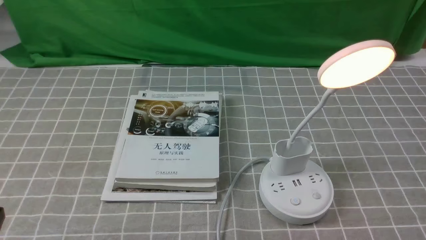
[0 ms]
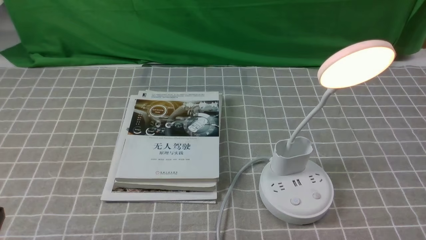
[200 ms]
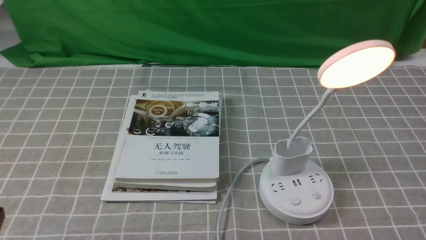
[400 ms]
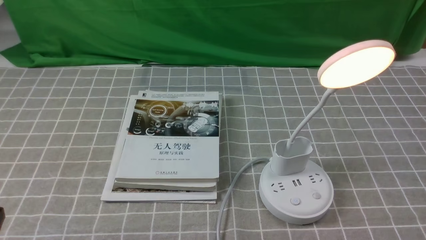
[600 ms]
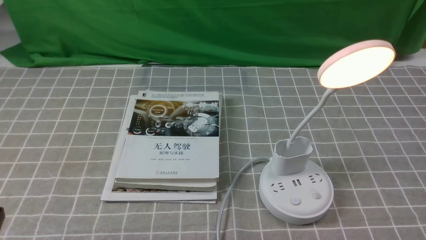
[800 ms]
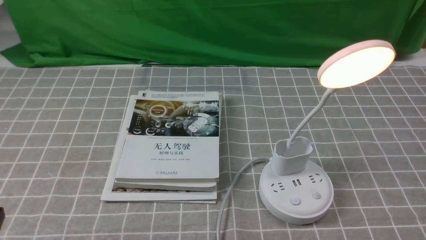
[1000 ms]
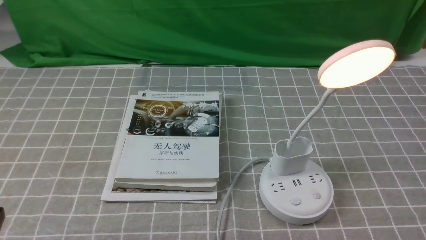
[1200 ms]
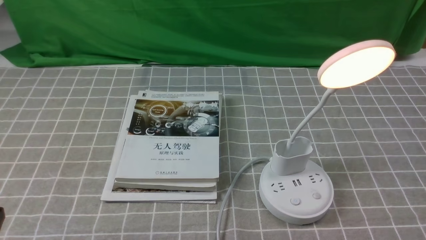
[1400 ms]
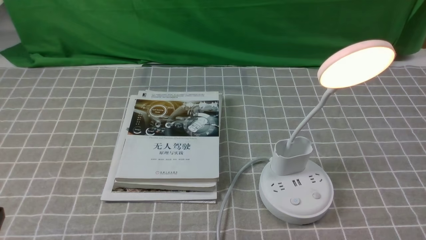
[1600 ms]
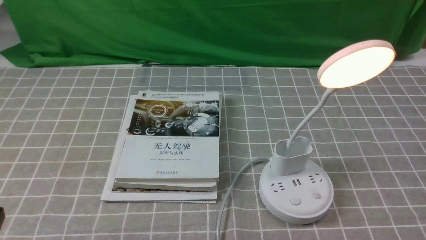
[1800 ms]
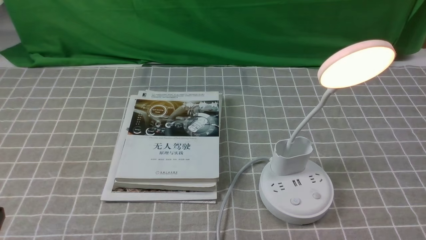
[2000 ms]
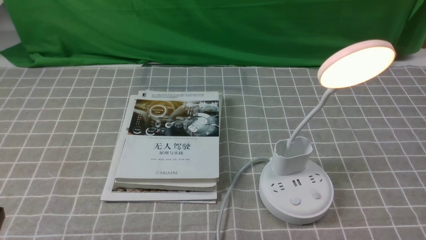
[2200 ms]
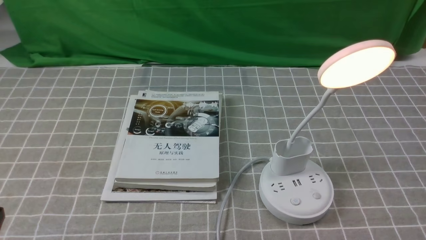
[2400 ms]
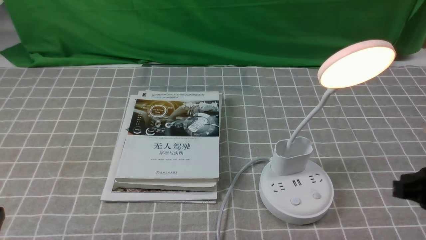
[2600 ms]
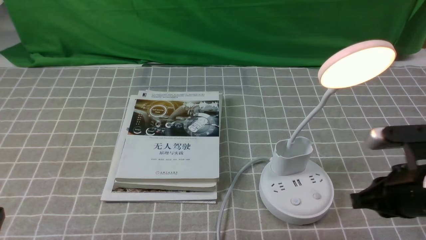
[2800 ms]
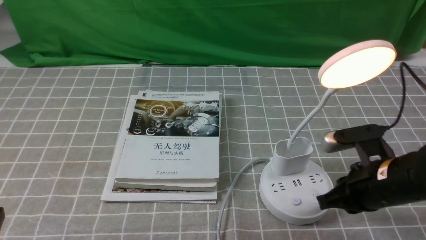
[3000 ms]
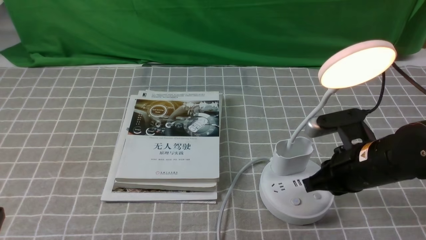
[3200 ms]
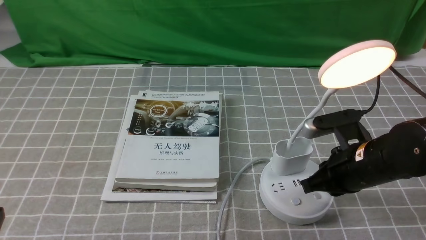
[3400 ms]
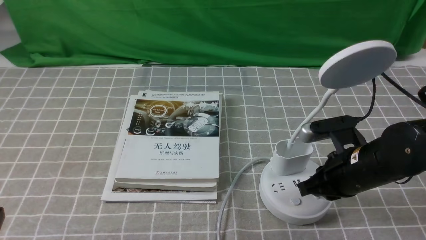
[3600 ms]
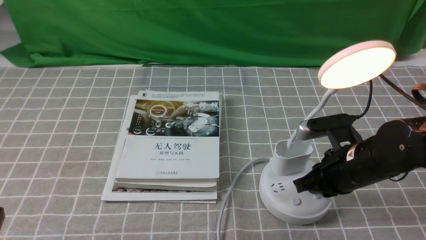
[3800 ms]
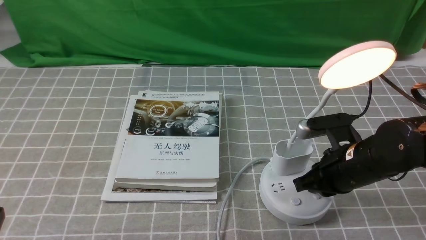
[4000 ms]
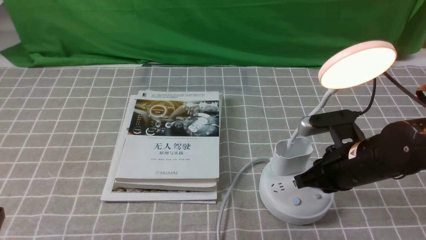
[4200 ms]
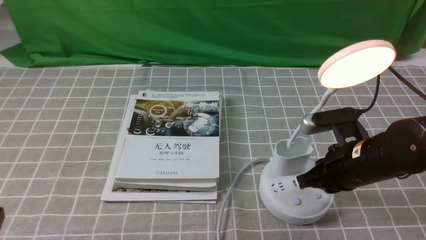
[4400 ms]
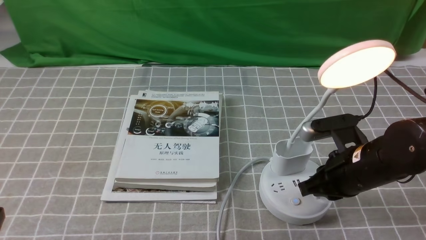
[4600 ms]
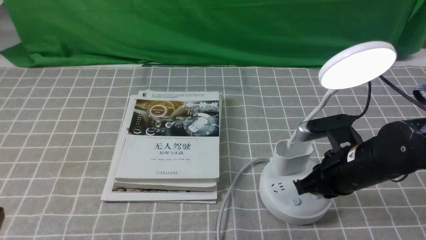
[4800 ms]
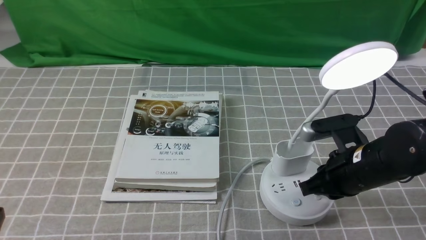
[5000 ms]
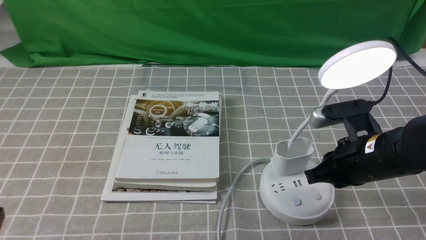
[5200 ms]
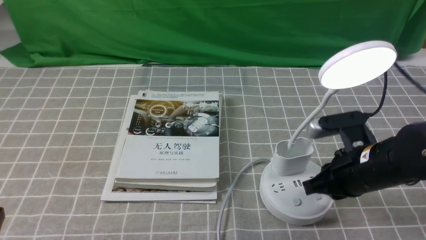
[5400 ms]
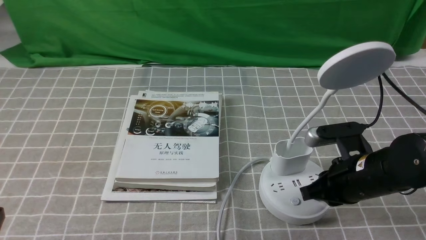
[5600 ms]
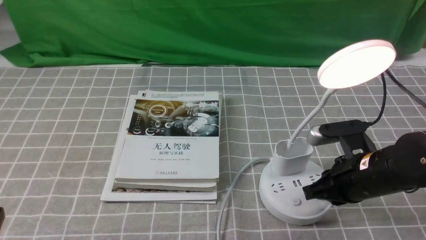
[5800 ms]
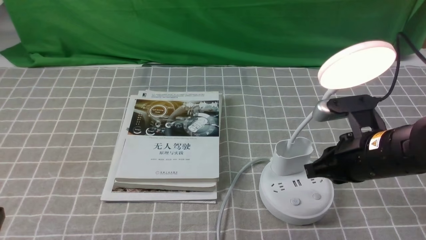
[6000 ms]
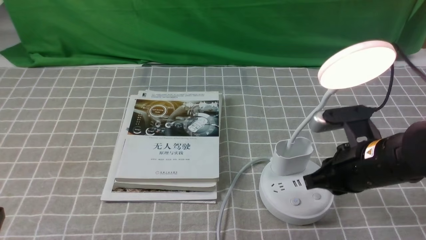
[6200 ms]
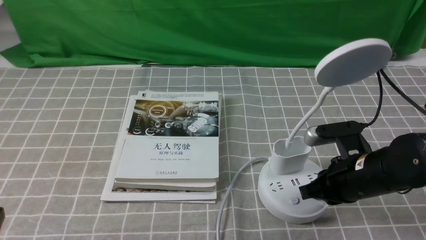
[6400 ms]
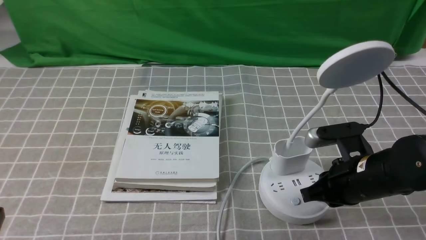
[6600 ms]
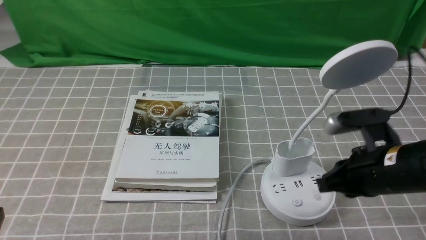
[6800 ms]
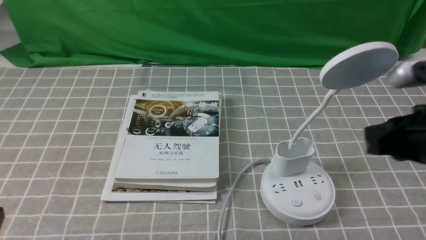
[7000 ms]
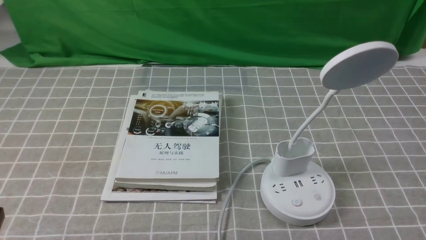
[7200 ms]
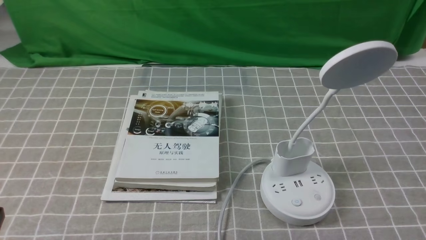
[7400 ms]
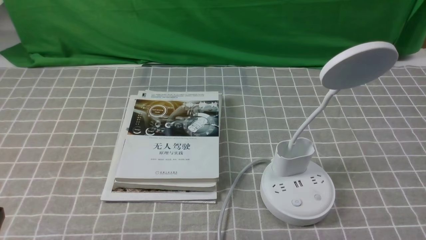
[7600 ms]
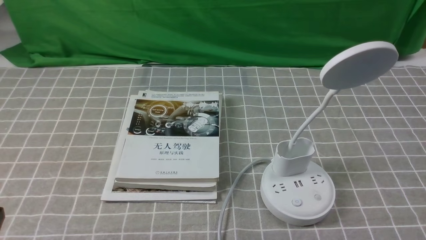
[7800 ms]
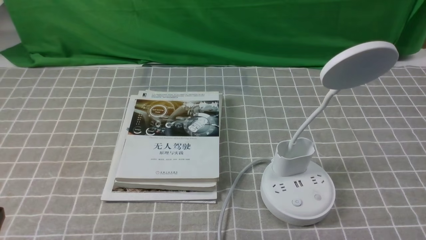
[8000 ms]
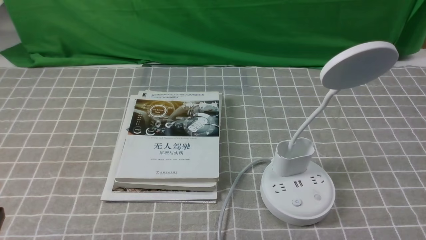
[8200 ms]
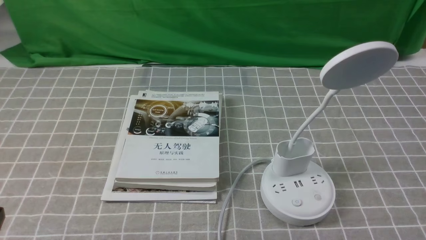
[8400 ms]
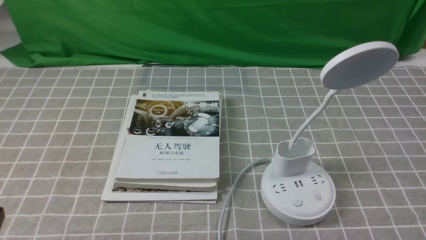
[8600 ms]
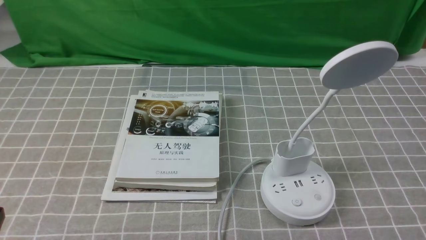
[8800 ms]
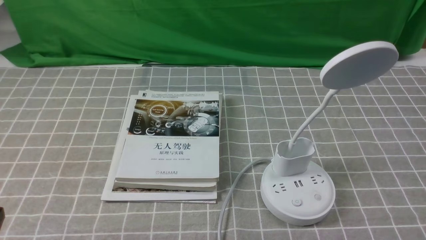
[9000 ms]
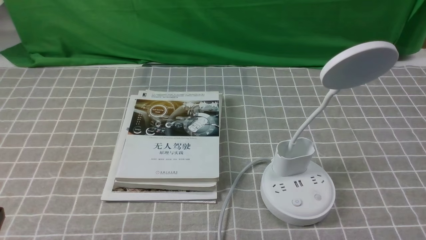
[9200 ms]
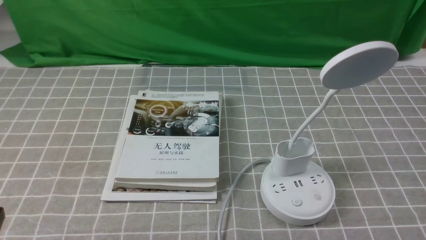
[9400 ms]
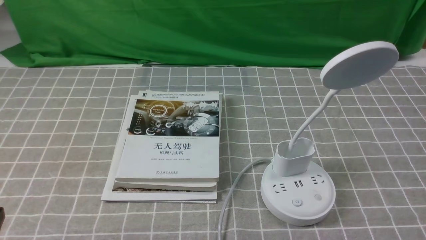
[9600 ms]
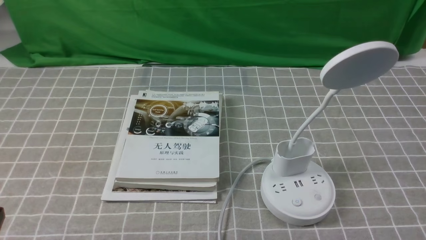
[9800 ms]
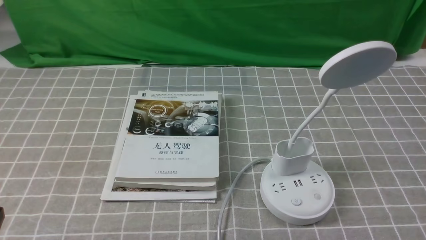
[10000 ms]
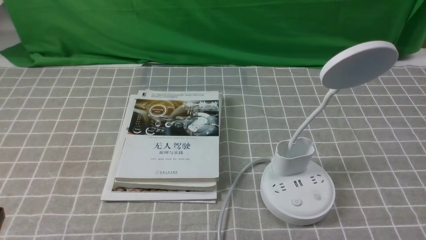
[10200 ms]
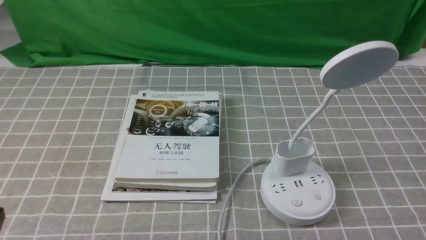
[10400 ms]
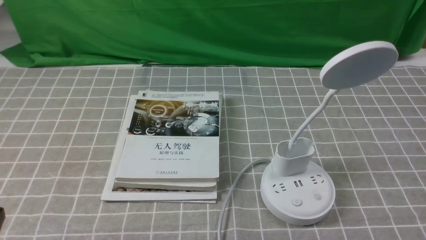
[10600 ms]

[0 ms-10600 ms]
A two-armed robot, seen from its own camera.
Task of the whole recording: turn off the desk lamp on the grey coffee tablecloth by hand.
Step, 0 ms to 6600 ms: use the right arm to press the button switch on the lamp holder.
1600 ms to 3000 ms: The right gripper is displaced forward, to the left and downward by approximately 20 cm.
3000 ms to 4600 ms: The right gripper closes its fingers.
4600 ms to 6000 ms: The right gripper closes up.
6000 ms to 7600 ms: The right gripper travels backward, upward and to the right by about 20 cm.
